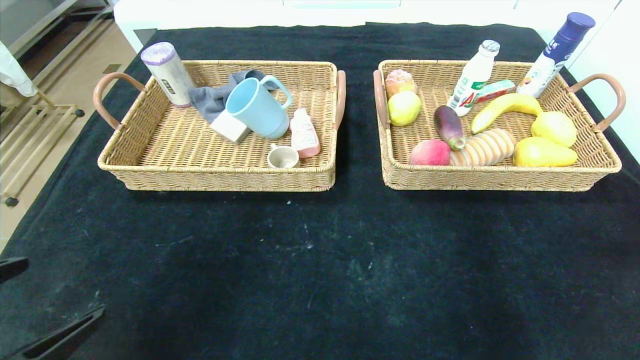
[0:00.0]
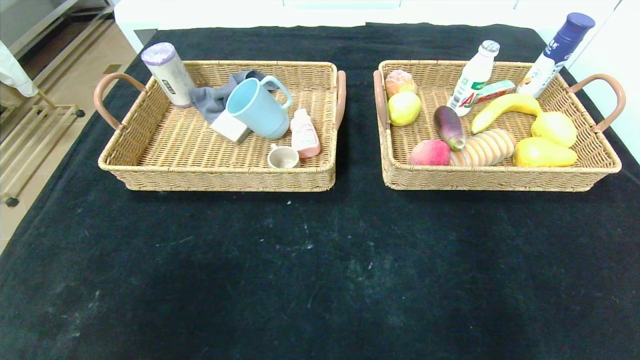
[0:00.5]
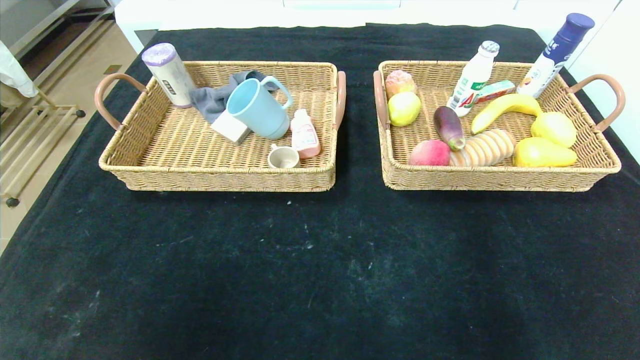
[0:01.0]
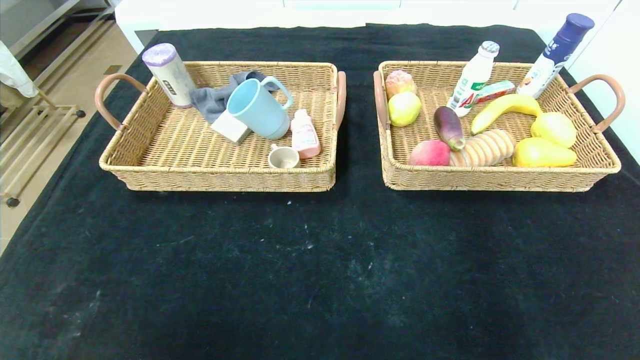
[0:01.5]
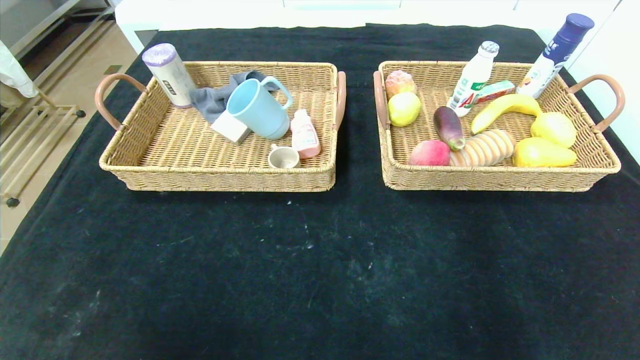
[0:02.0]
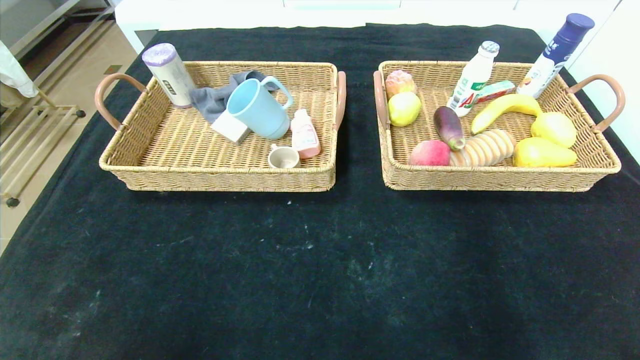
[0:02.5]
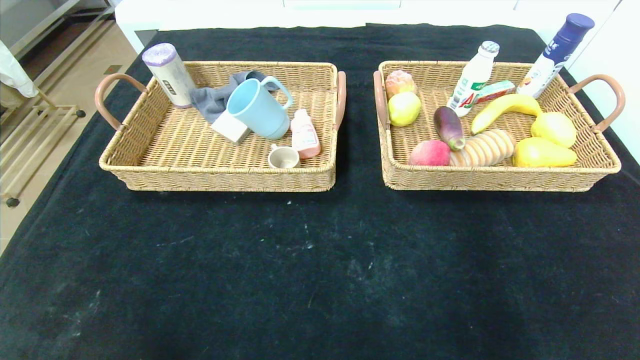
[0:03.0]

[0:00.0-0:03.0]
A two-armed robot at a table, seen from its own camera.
0:00.0 to 0:01.5: The two grippers go roughly 20 cm backward.

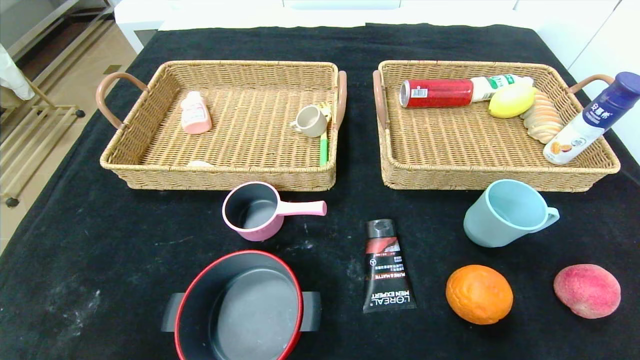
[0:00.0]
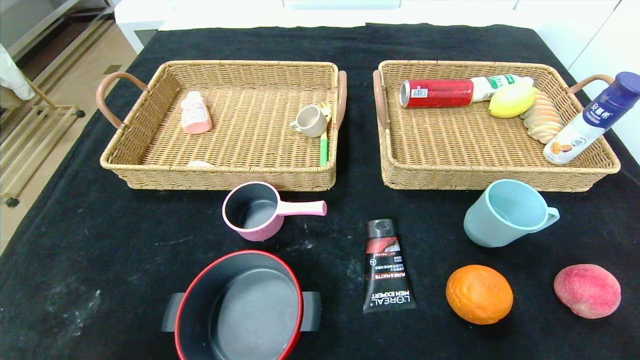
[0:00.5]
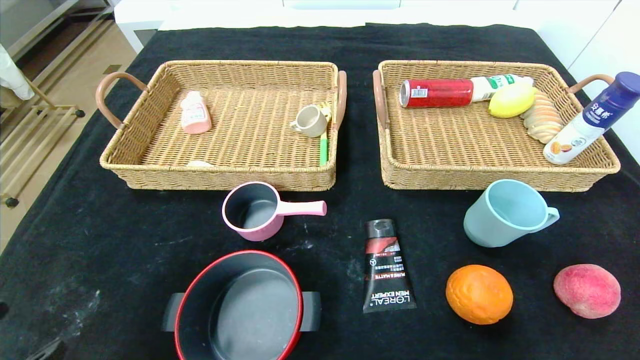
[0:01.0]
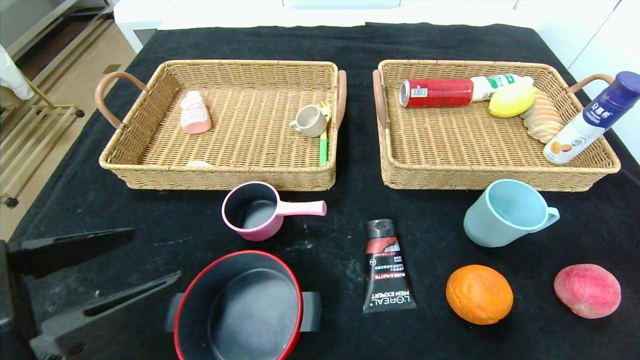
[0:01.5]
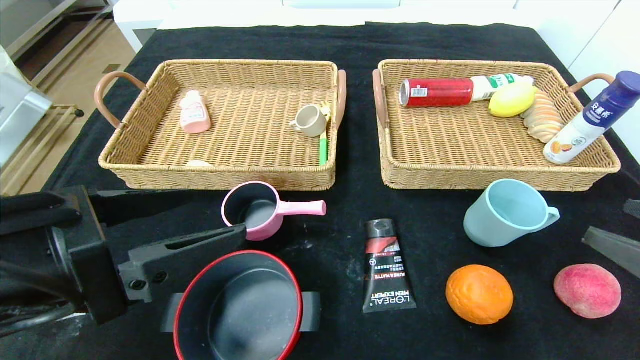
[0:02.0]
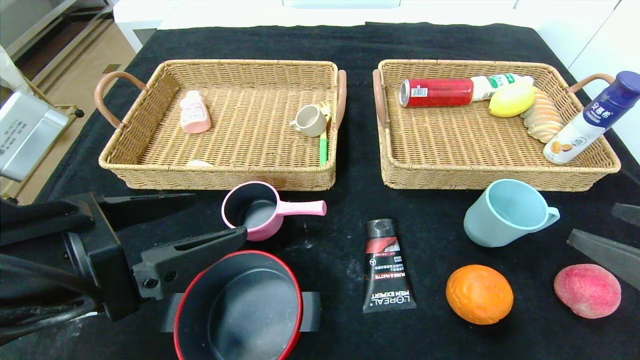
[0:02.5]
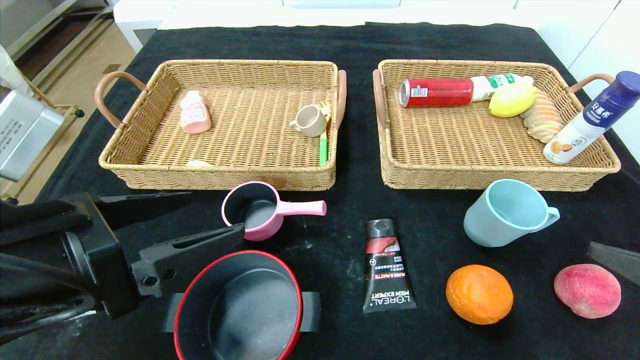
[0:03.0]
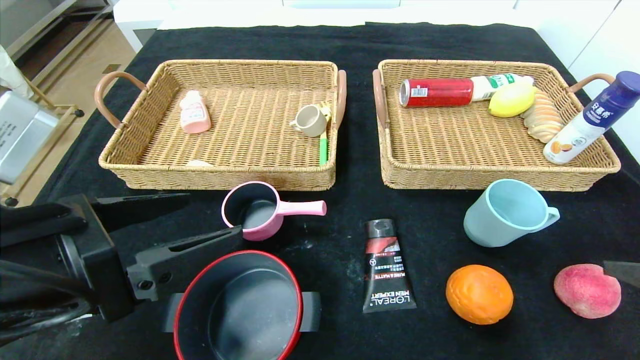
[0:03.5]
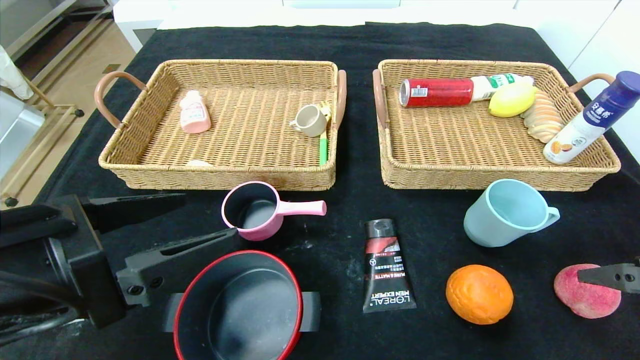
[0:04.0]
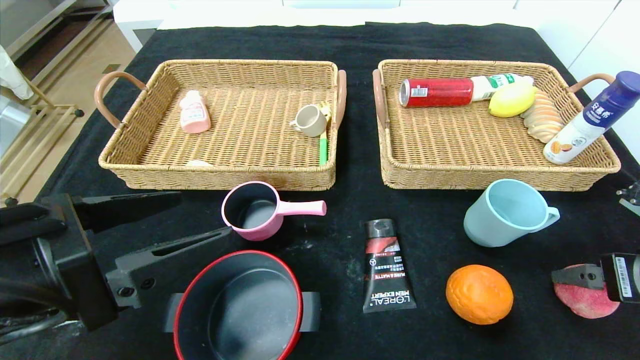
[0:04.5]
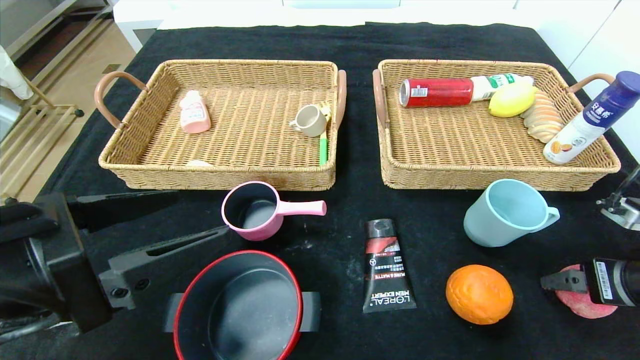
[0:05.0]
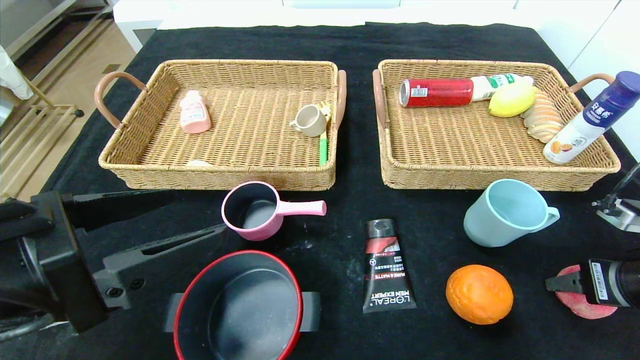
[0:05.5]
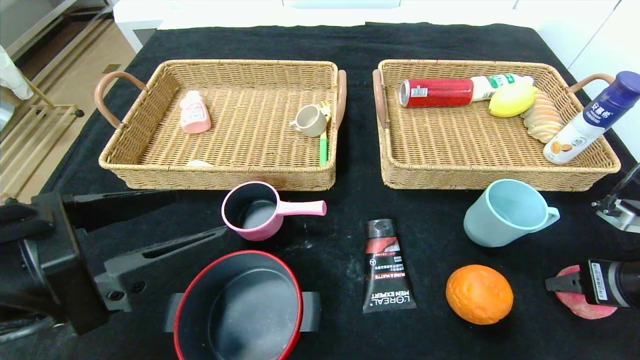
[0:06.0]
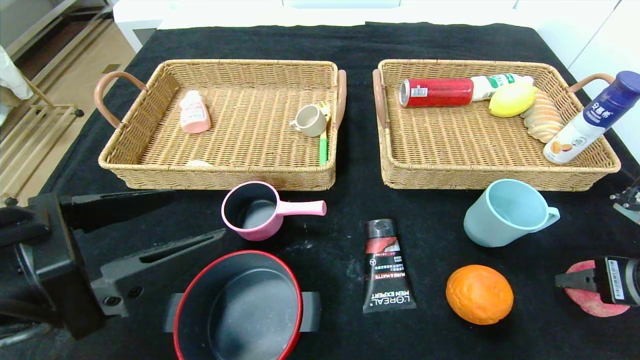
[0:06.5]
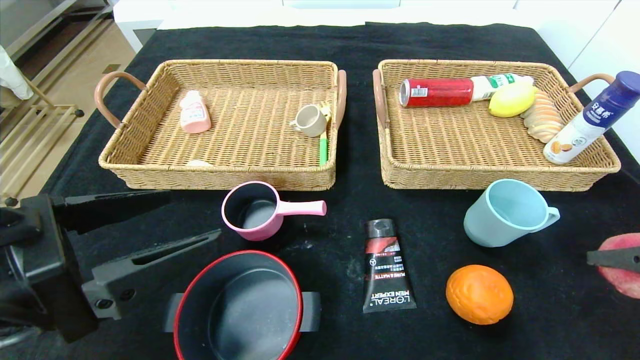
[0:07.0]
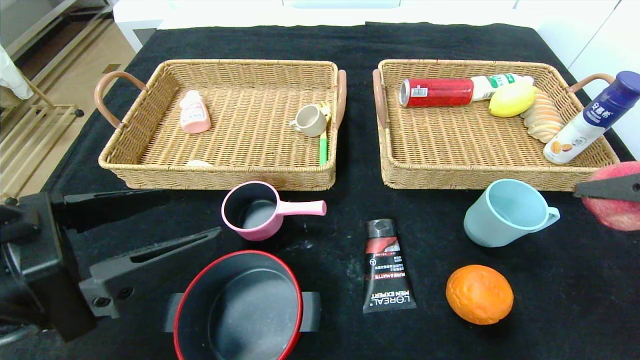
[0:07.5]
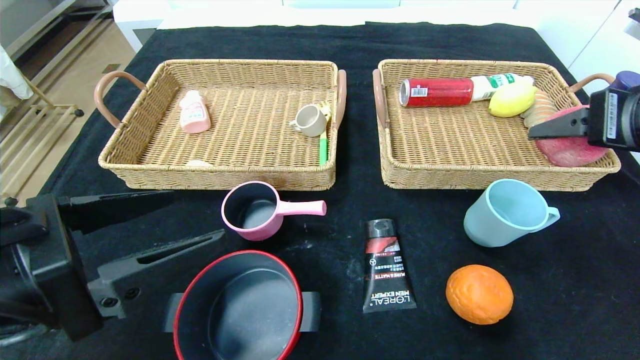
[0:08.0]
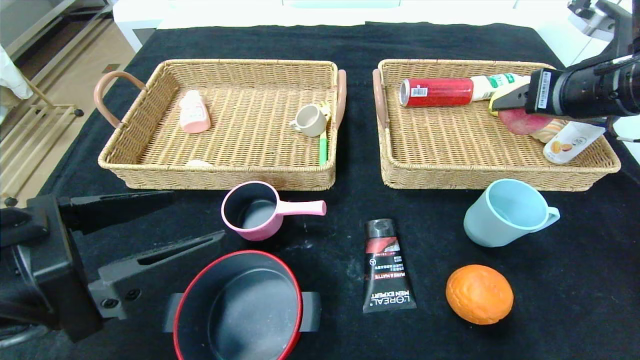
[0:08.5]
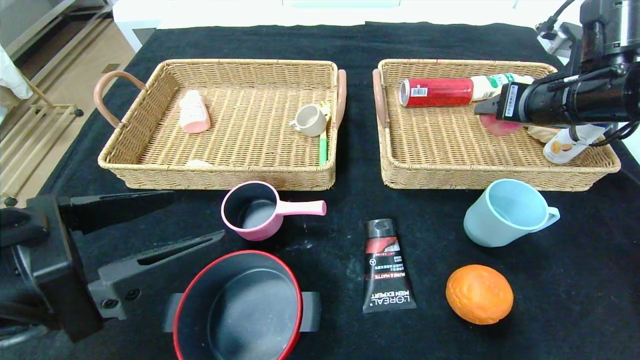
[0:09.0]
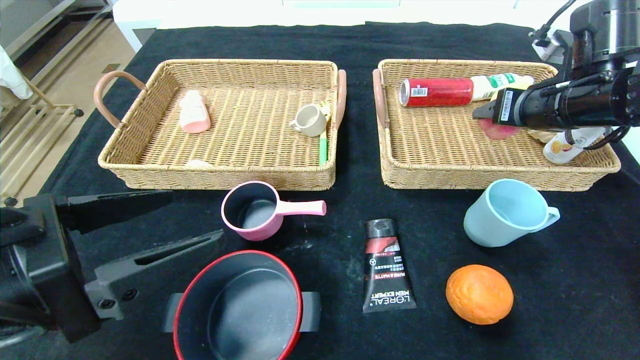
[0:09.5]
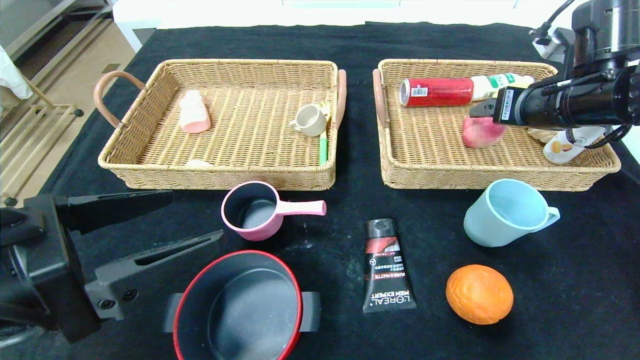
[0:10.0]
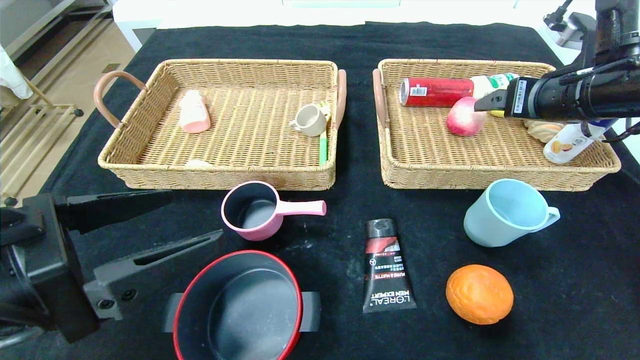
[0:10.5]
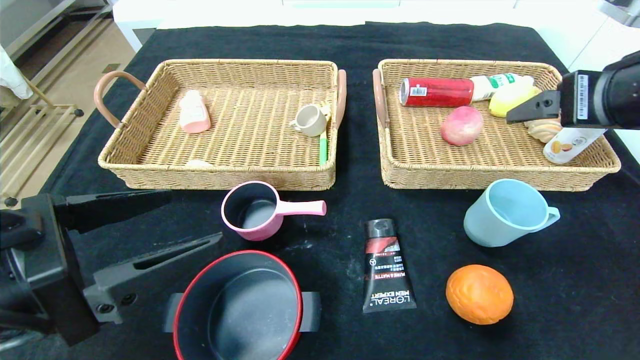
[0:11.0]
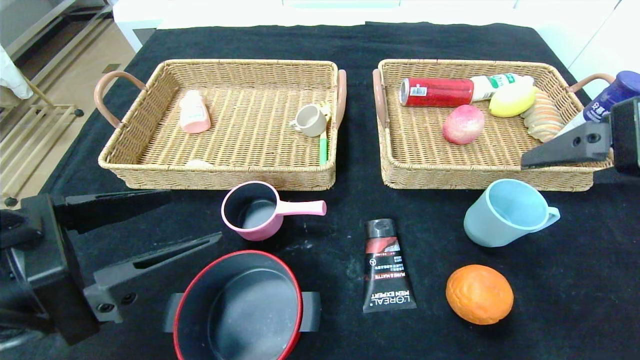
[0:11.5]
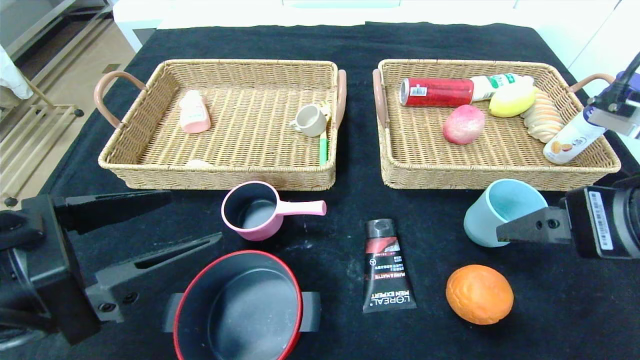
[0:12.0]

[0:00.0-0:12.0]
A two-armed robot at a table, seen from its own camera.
Step, 0:00.0 to 0:10.0: Grasp the peach and put it in the right basket.
0:00.0 to 0:02.0: The right gripper shifts approximately 20 cm upward and forward. Meanwhile the left gripper shifts roughly 25 cm upward, forward and to the right.
0:02.0 to 0:04.0: The right gripper heads forward, covering approximately 5 cm.
0:04.0 to 0:06.0: The right gripper changes place by roughly 5 cm, and closes its fingers.
0:06.0 to 0:08.0: The right gripper heads upward, covering approximately 15 cm.
0:08.0 to 0:10.0: The right gripper goes approximately 10 cm forward.
0:10.0 to 0:12.0: The right gripper goes about 20 cm backward.

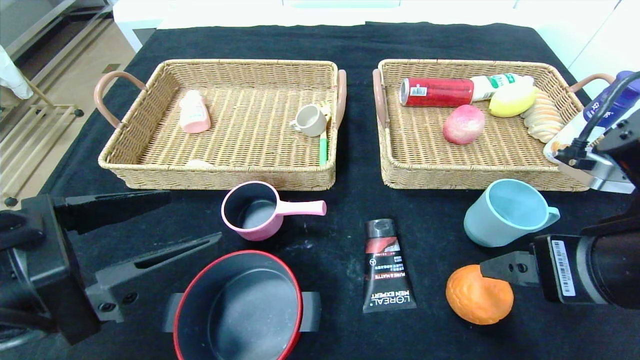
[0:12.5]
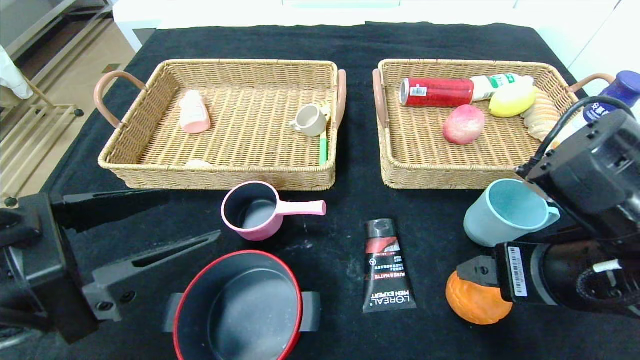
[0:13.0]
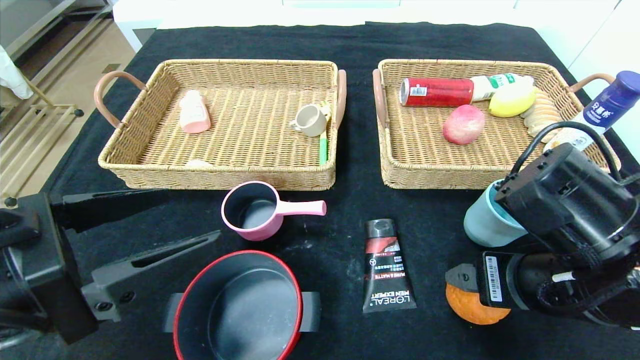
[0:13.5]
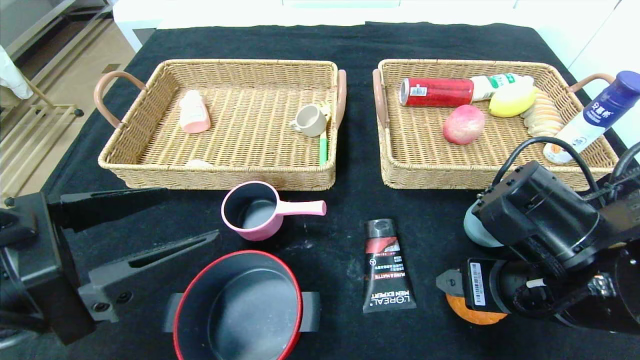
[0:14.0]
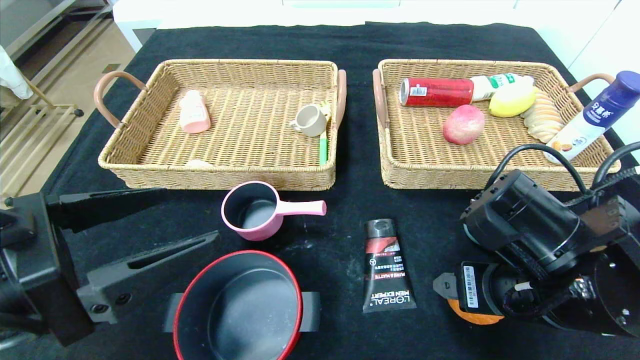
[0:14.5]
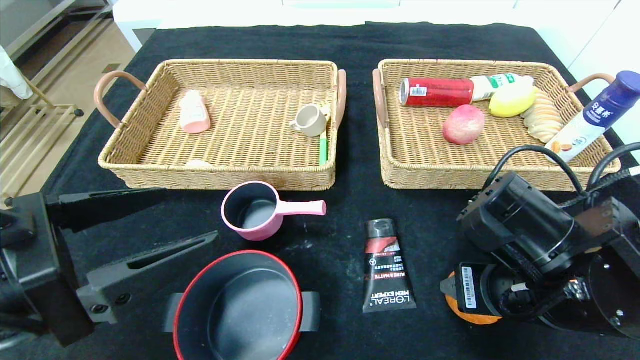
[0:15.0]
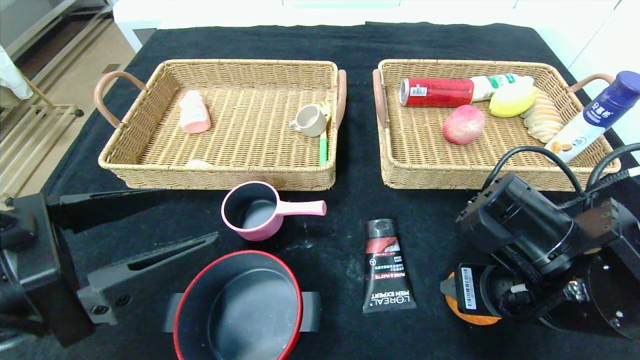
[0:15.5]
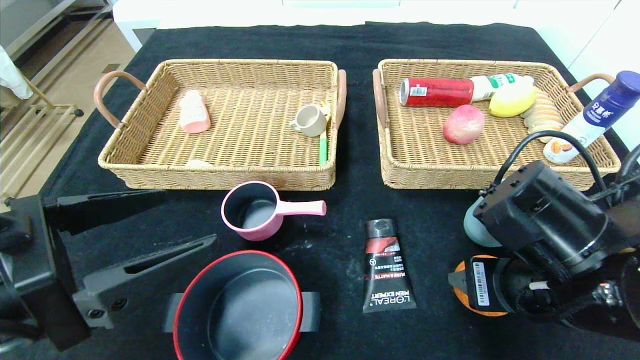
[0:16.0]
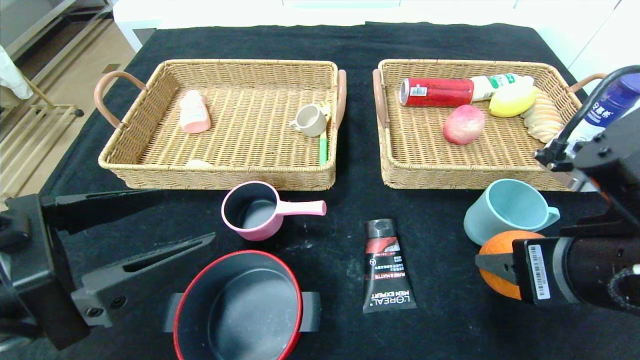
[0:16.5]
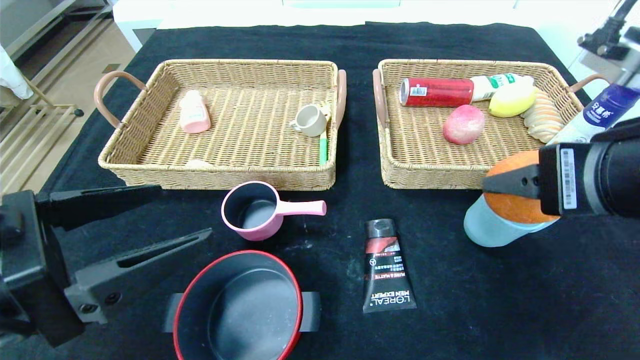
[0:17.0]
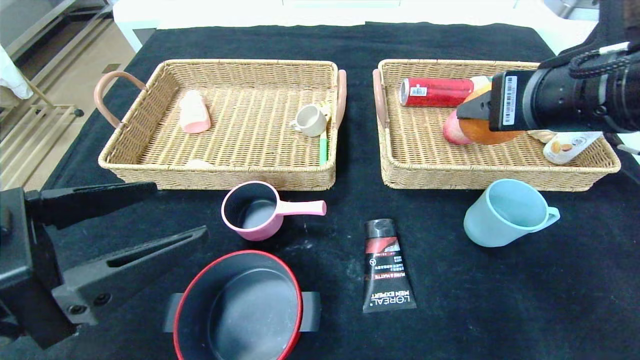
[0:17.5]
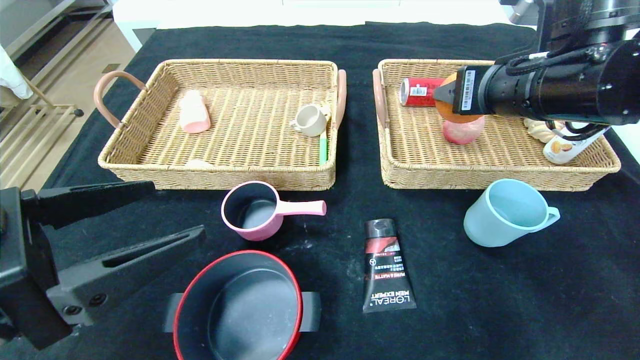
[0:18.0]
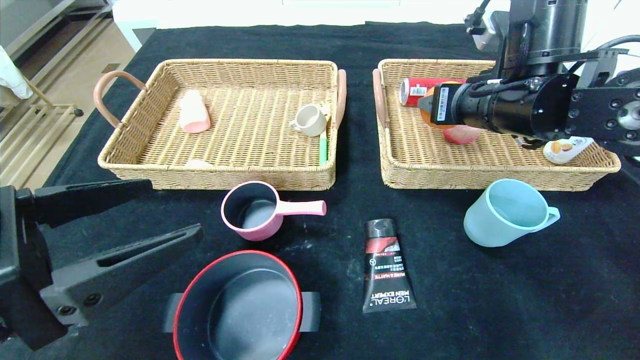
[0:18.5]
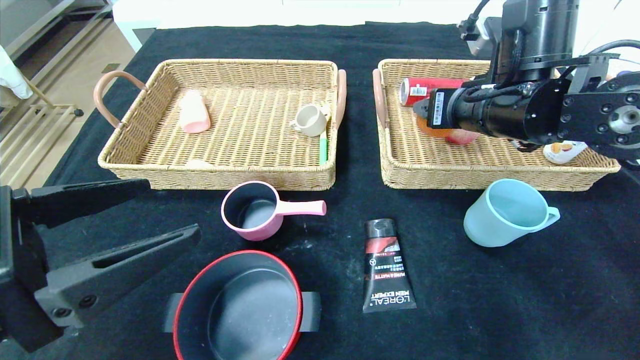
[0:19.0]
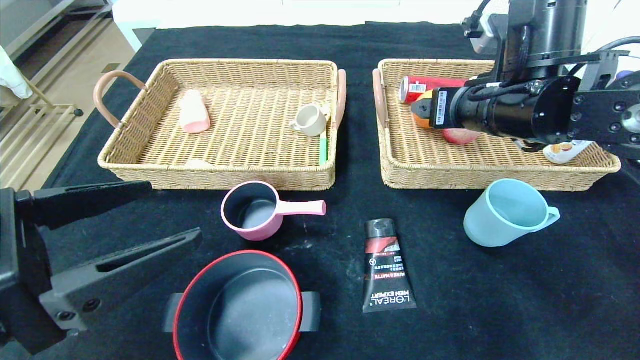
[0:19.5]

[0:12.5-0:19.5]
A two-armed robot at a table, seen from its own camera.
Step, 0:12.5 to 0:19.0: Grasp the orange and put it in the right basket.
0:12.5 to 0:14.5: The right gripper moves downward, about 5 cm.
0:14.5 to 0:16.0: The grippers stay close to where they were, moving slightly.
0:16.0 to 0:17.5: The right gripper travels upward and forward by approximately 15 cm.
0:17.5 to 0:19.5: The right gripper moves forward, roughly 10 cm.
